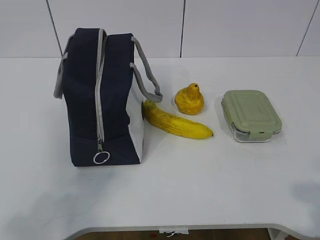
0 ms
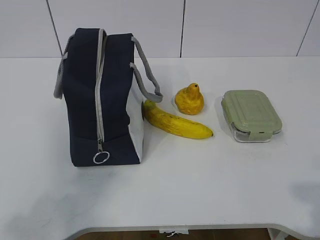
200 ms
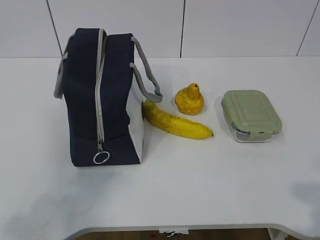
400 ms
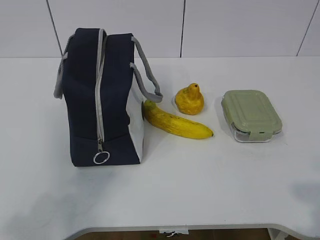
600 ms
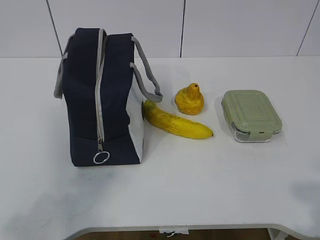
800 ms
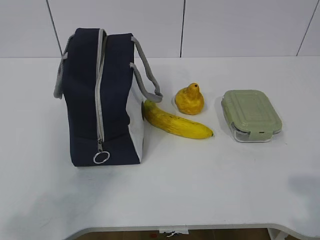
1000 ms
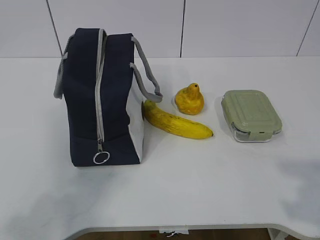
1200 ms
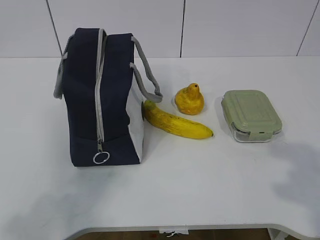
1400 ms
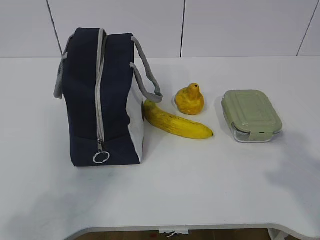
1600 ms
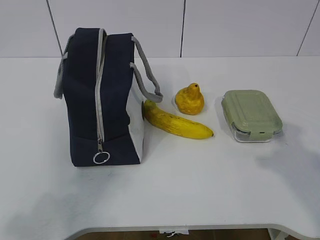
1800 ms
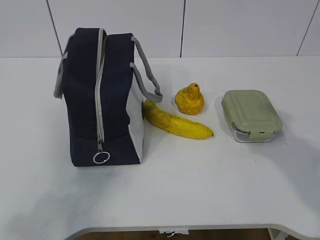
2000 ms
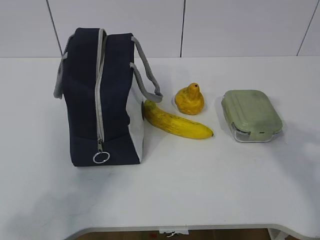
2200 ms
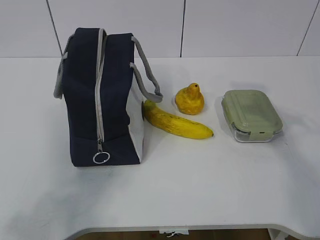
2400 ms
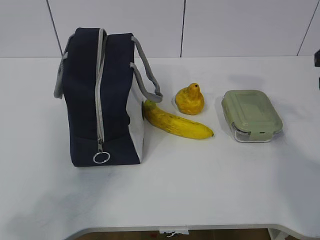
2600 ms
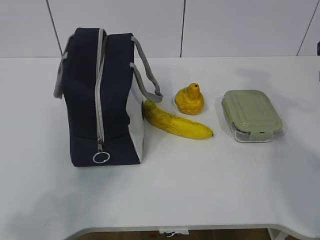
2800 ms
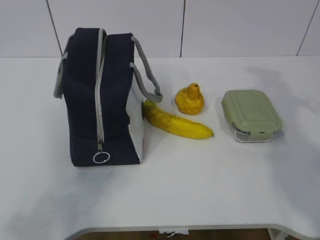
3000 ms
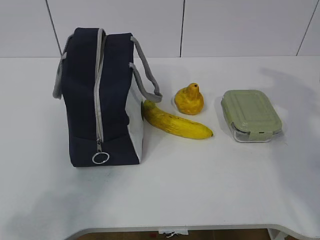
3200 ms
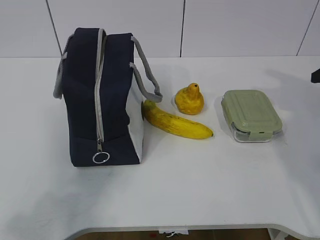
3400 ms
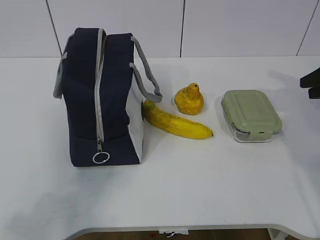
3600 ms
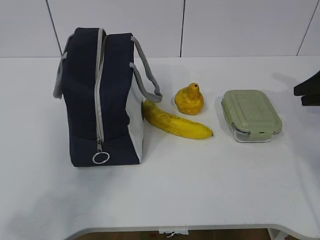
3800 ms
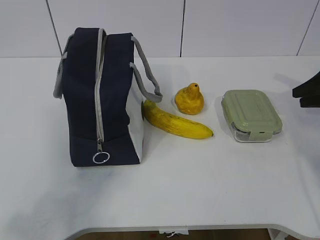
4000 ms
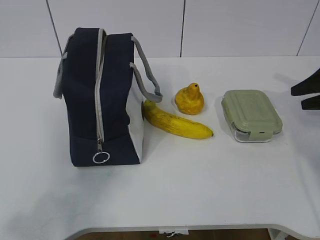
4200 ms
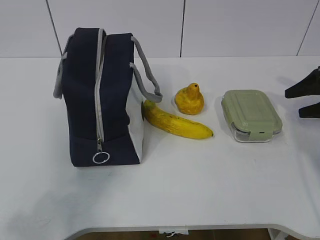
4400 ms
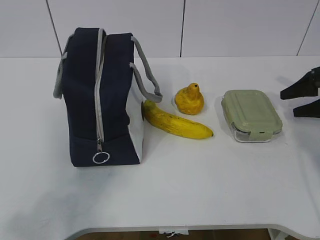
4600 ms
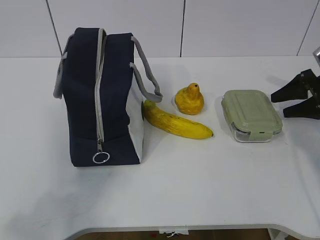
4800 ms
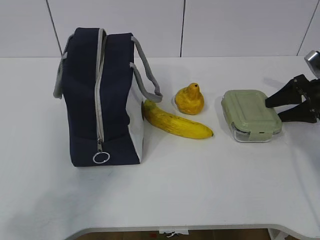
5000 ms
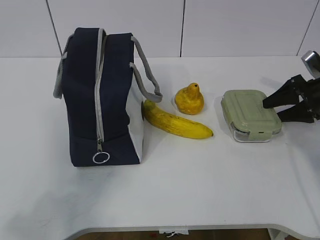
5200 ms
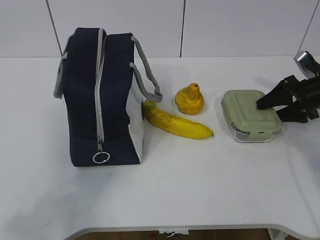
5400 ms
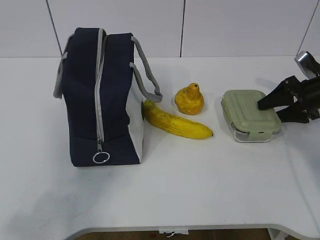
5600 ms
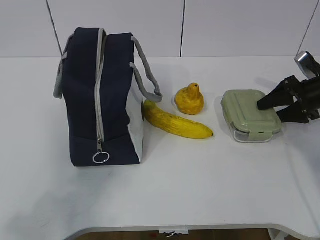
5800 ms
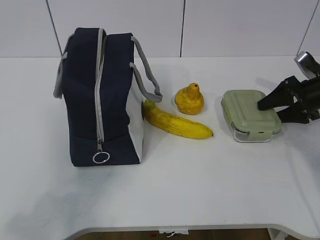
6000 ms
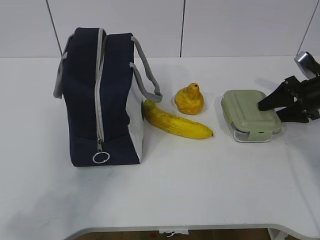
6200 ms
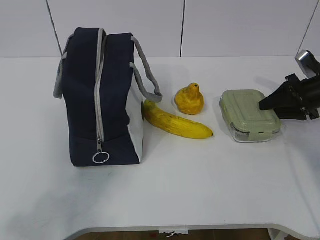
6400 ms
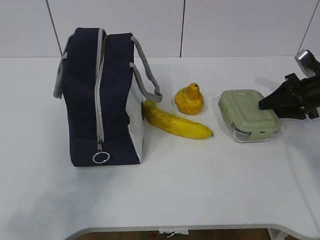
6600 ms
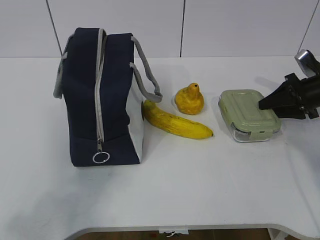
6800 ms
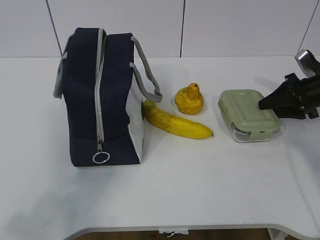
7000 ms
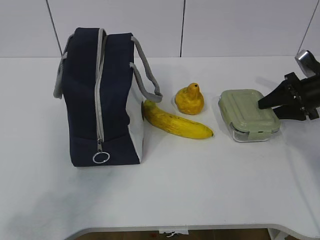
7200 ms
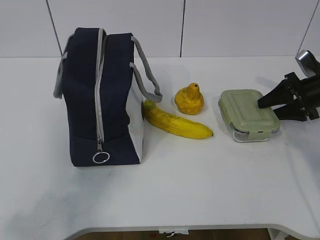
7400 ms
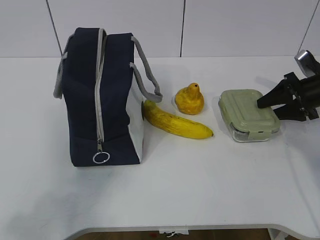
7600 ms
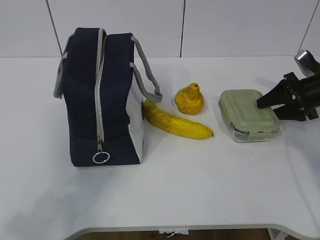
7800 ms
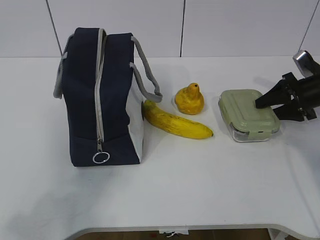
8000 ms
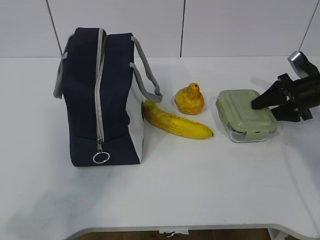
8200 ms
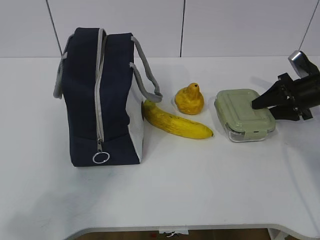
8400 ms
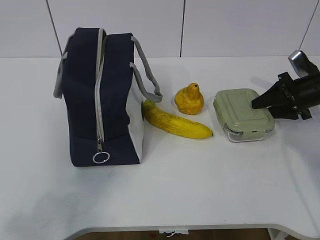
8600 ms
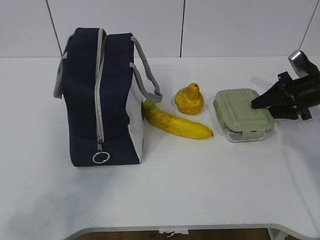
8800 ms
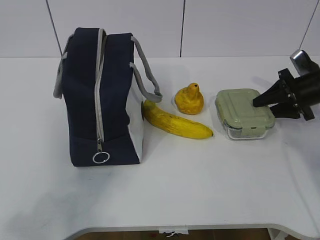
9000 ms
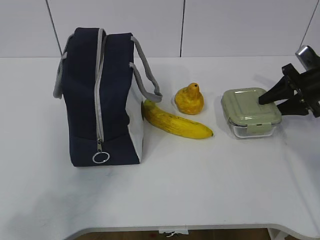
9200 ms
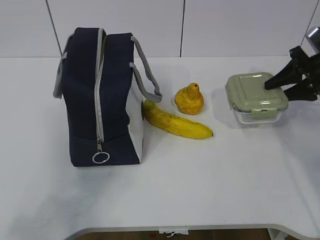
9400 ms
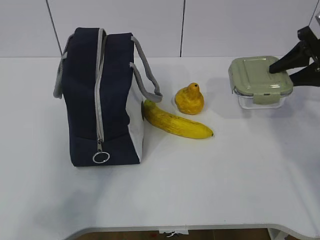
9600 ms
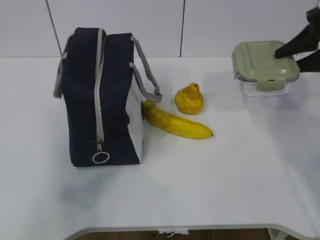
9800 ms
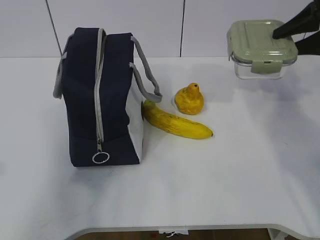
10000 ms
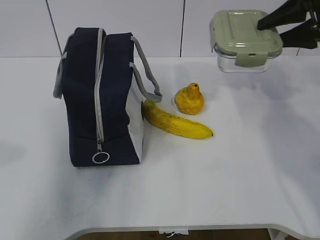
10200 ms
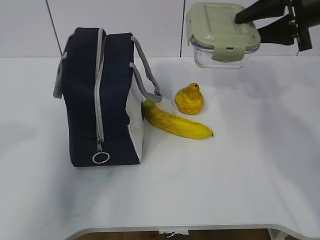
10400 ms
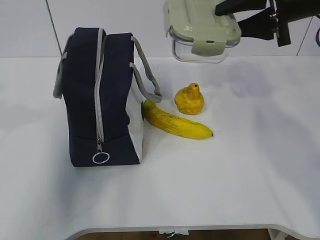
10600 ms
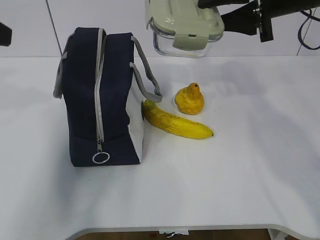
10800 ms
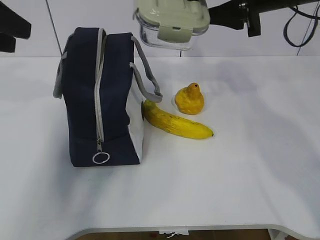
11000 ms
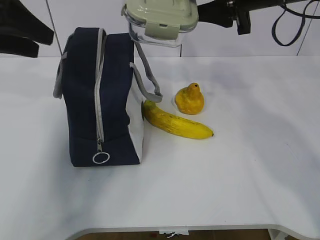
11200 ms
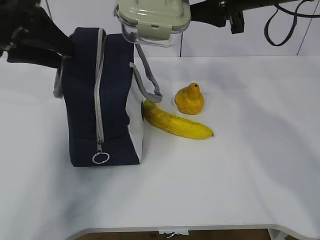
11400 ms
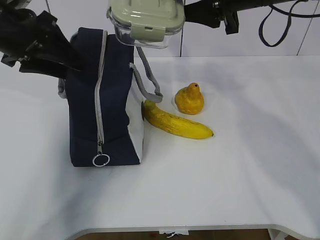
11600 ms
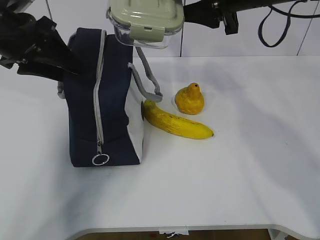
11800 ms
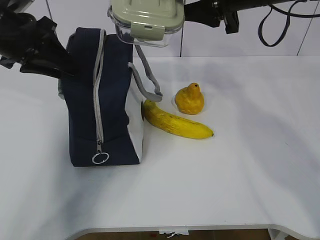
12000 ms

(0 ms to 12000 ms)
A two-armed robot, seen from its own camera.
Step, 0 ms - 7600 ms: Grab the lunch box with your right hand.
Step, 7800 ms - 10600 ms: Grab the lunch bag with your left hand.
3000 ms - 4400 ms: The right gripper shifts about 15 cm downward, to the right and forward, and opens.
4400 ms - 6000 ms: The right gripper moves about 5 cm.
6000 ms - 7600 ms: Both grippers stay about where they are.
7600 ms - 9000 ms: There are only small adjustments of the grippers.
9000 ms - 10400 ms: The left gripper travels forward and upward by approximately 15 cm; the right gripper moves upward and to the left, about 20 cm.
10400 ms - 12000 ms: The right gripper heads to the left, covering approximately 10 cm; the left gripper travels forward by about 20 cm.

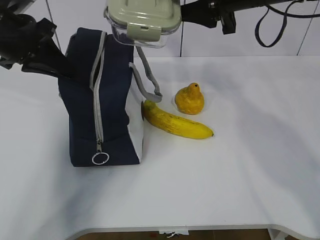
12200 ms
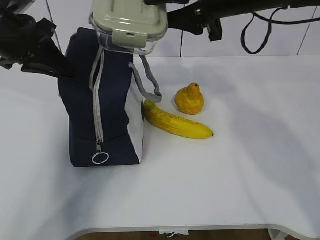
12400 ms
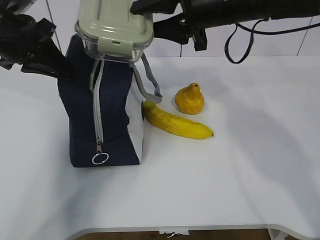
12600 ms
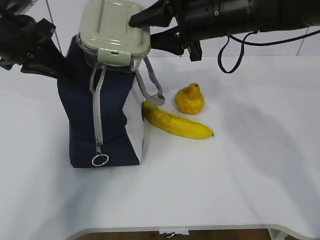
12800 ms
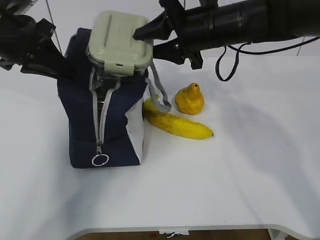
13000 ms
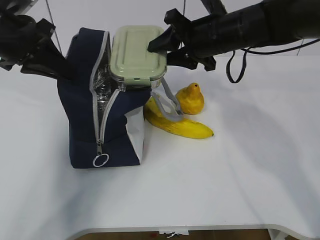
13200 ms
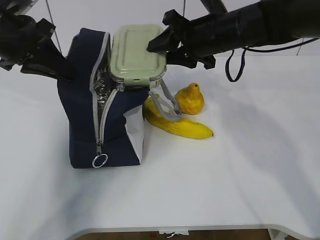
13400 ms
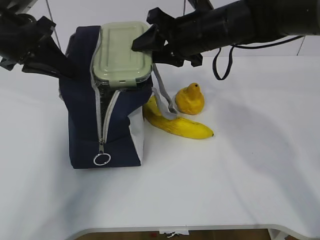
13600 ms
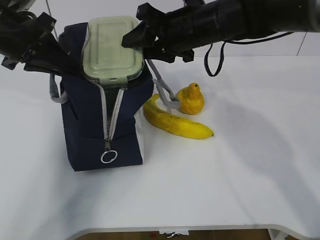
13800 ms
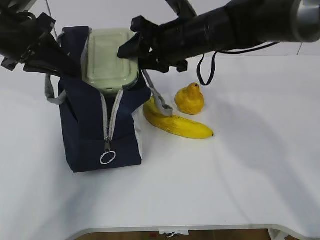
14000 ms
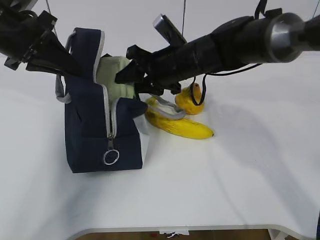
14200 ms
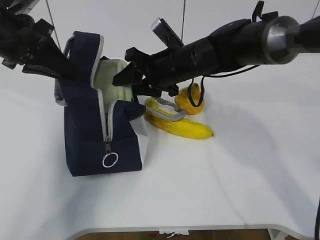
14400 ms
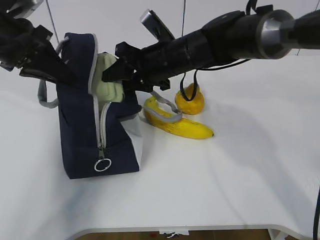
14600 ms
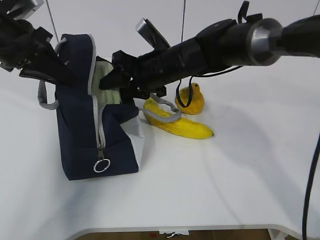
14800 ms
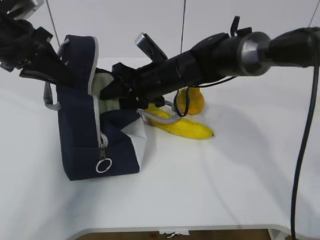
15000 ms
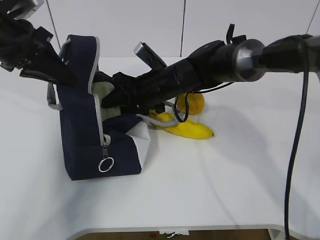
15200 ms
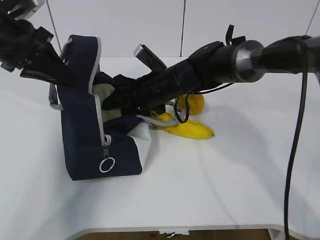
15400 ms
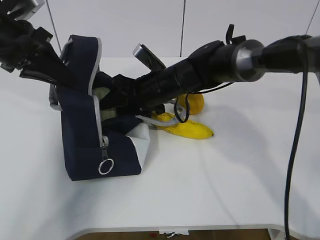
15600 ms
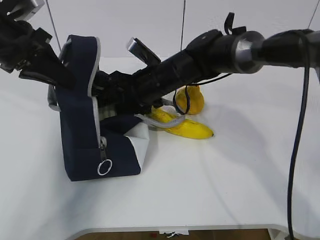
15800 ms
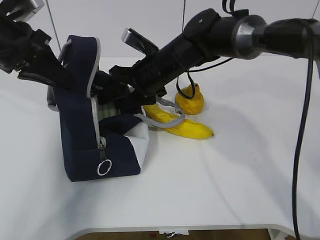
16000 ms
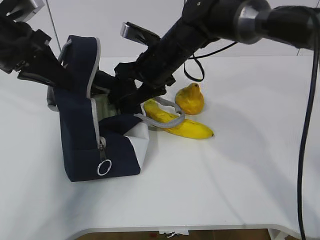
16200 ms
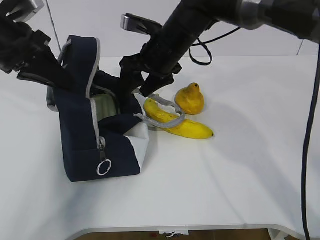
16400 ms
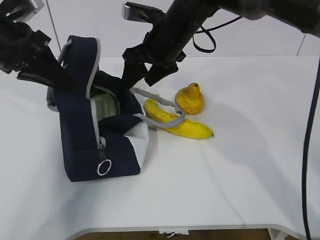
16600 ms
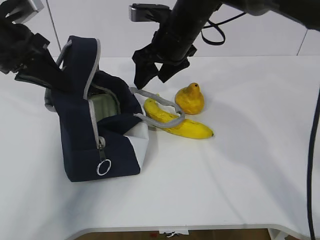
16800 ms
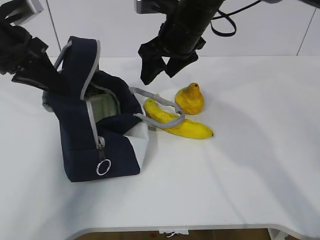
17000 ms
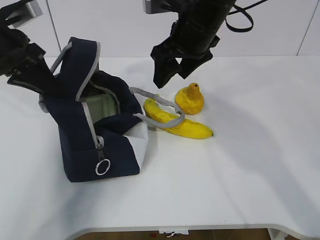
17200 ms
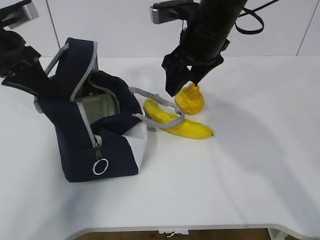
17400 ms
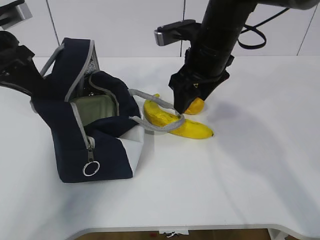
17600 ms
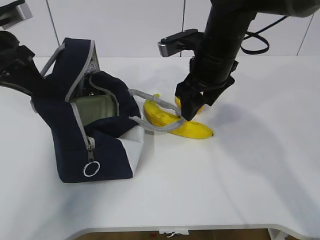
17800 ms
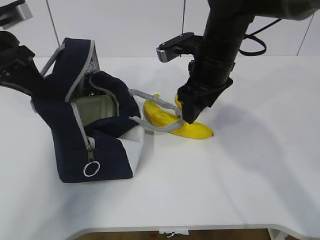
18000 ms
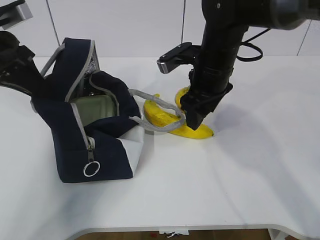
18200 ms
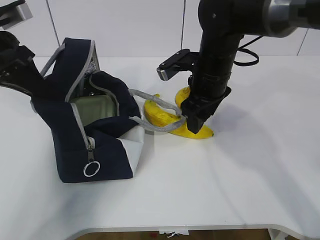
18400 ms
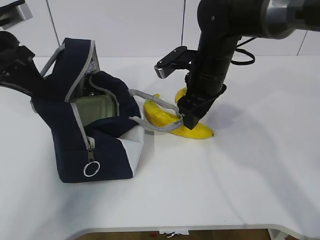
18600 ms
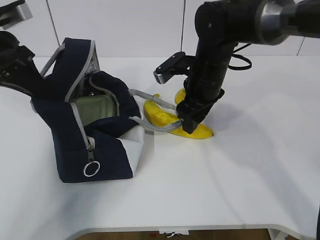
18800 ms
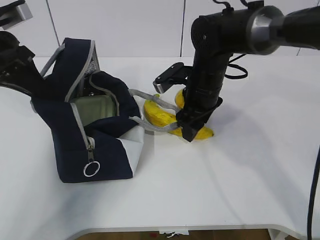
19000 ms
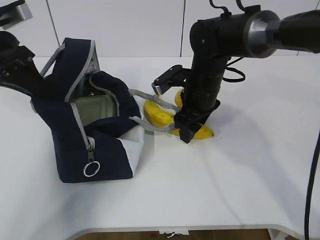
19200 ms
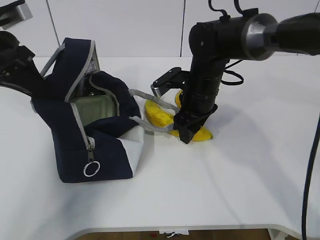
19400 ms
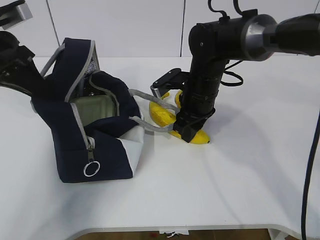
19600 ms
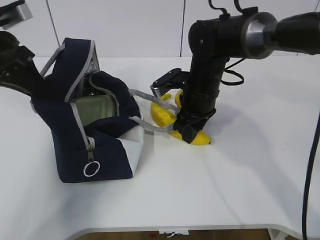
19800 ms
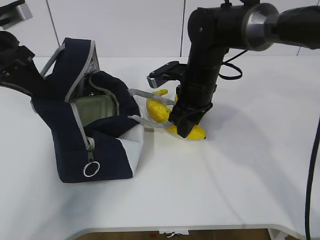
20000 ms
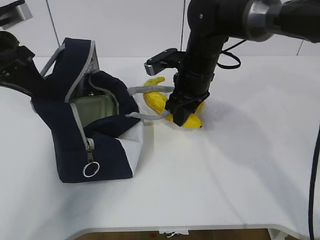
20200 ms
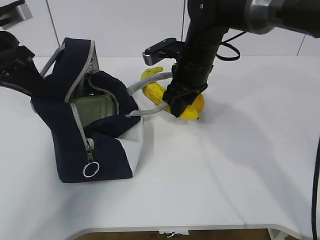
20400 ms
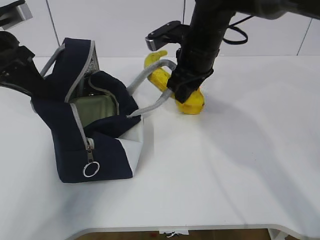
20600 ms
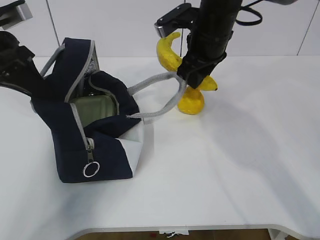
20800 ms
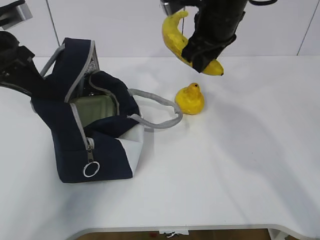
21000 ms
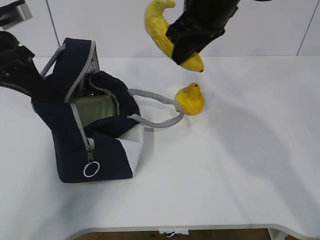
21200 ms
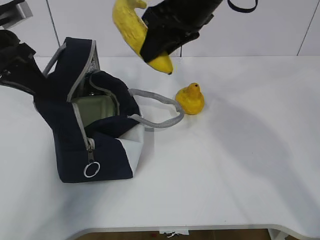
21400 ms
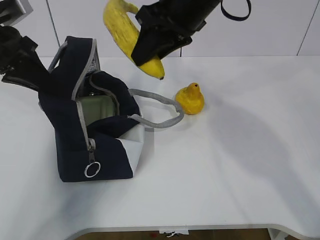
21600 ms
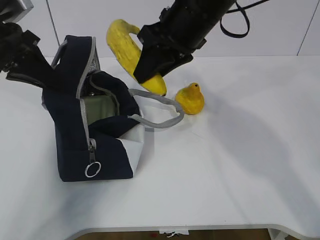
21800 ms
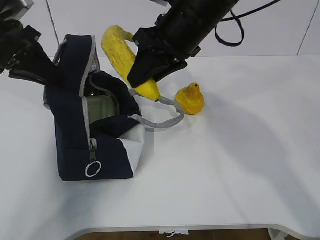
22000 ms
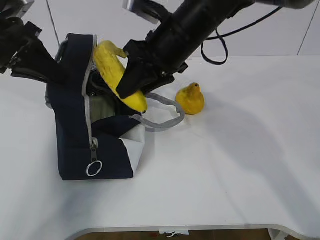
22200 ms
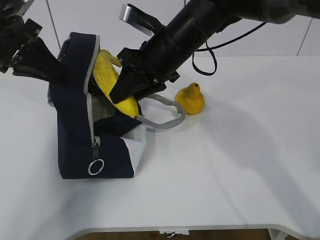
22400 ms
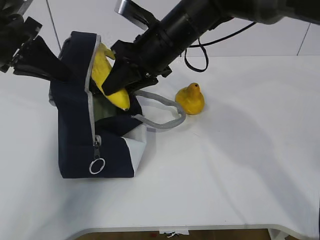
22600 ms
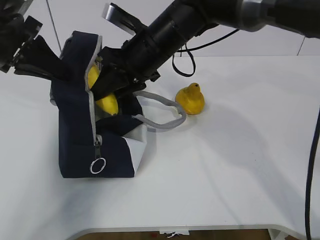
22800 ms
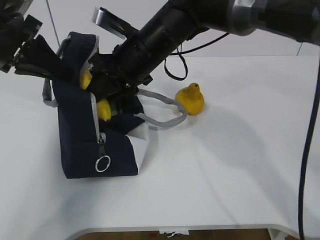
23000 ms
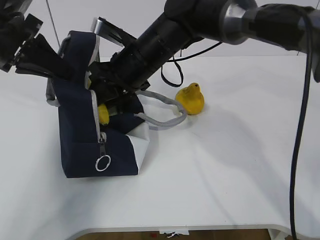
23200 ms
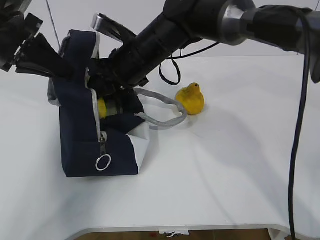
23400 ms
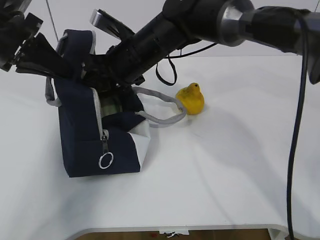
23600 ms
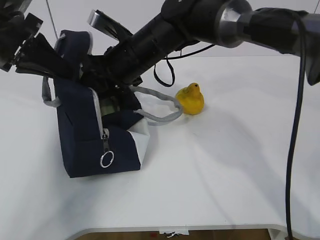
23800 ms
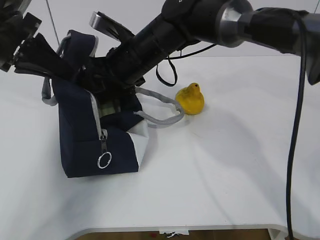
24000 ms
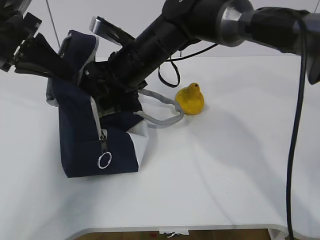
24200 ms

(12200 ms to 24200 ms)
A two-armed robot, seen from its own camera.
Step, 13400 ms - 16400 ms: Grab the banana with your right hand.
Step, 16600 ms - 20200 ms: Place it into the bag with your right hand.
Step, 20400 ms - 22600 ms: Grab the pear with your right hand.
12200 ms - 13800 ms: The right gripper shifts some 10 cm to the left and downward.
13800 ms - 15200 ms: The right gripper goes roughly 10 cm downward.
15200 ms - 16600 ms: The right gripper heads upward, covering approximately 10 cm, and opens.
16600 ms - 18200 ms: The right gripper travels to the right by about 5 cm.
18200 ms - 19800 ms: The right gripper moves downward, some 5 cm, and closes up.
19800 ms - 21200 ms: The right gripper heads upward, covering approximately 15 cm.
21200 ms - 22600 ms: The right gripper travels downward and to the left by roughly 10 cm.
22600 ms - 24200 ms: The right gripper ends up some 5 cm from where it was, and opens its fingers.
